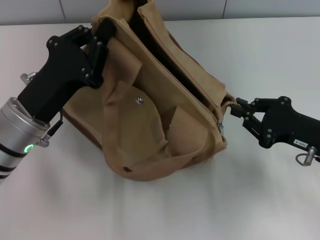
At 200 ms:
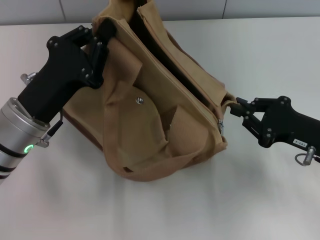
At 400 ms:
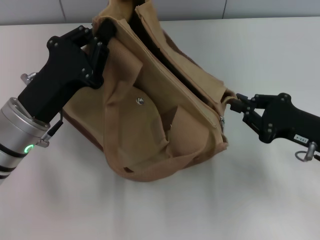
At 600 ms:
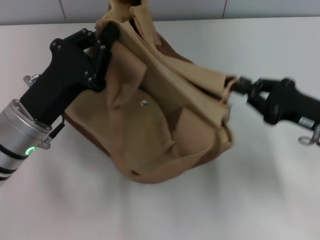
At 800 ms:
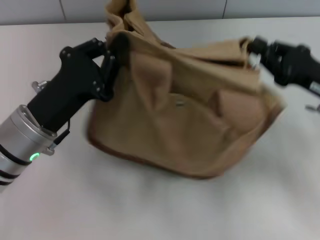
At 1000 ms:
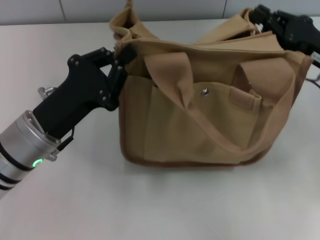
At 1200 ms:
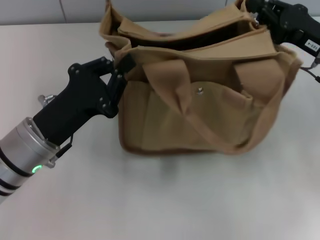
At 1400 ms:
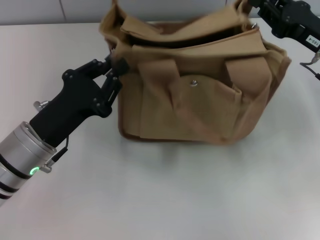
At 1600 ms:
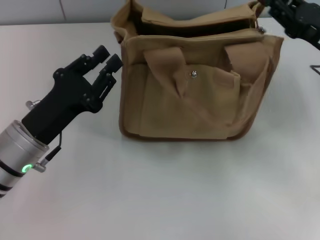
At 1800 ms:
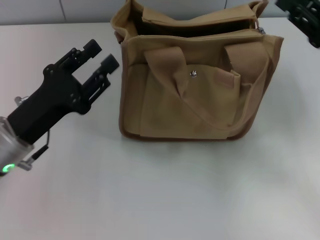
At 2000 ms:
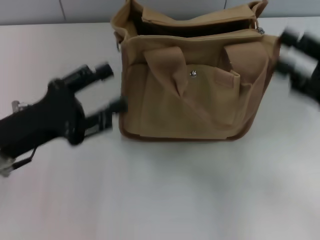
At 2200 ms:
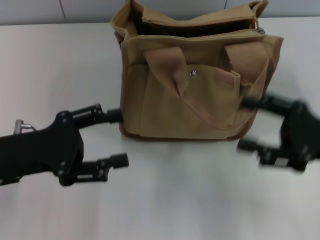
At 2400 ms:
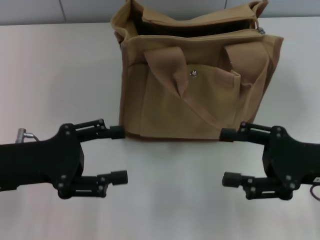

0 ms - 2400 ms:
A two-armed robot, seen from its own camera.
Step, 0 ms - 1600 ms: Grab the bag with your left hand.
0 ms - 1200 ms: The right gripper goes roughly 10 cm forward and upward.
1200 ms - 2400 ms: The right gripper goes about 10 cm backward, and opens its fingers. The left gripper travels to the left by some 5 cm, and opens its fingers.

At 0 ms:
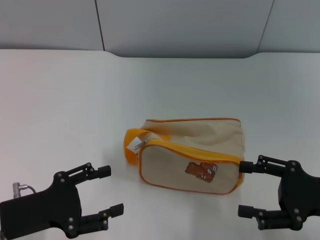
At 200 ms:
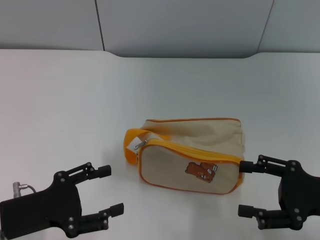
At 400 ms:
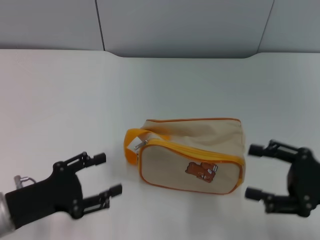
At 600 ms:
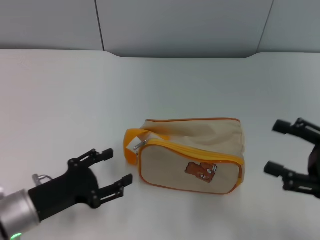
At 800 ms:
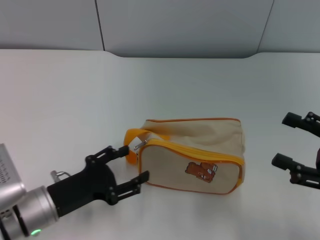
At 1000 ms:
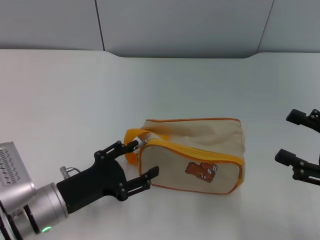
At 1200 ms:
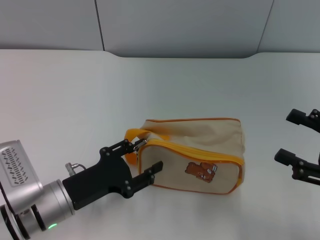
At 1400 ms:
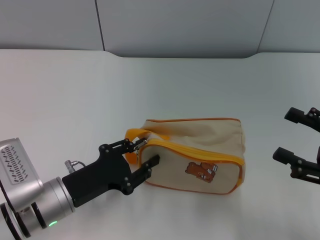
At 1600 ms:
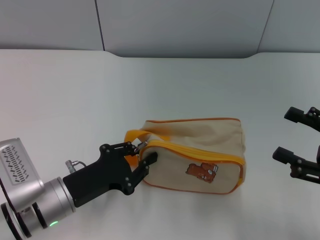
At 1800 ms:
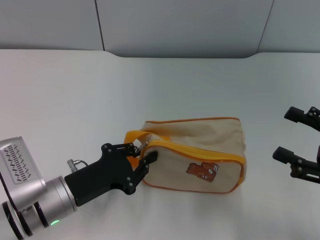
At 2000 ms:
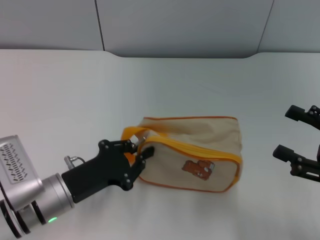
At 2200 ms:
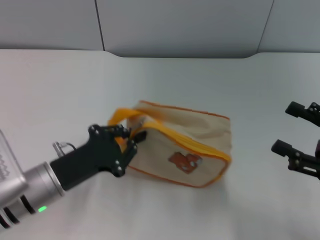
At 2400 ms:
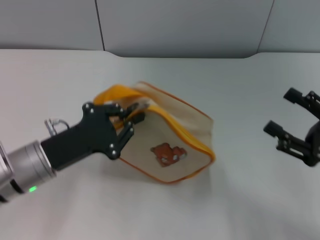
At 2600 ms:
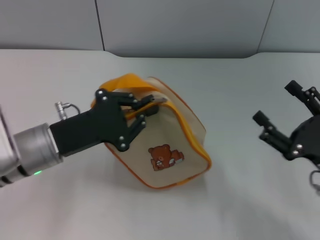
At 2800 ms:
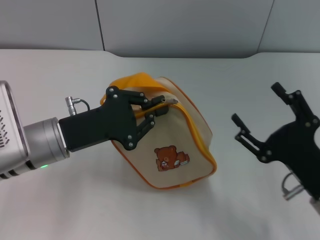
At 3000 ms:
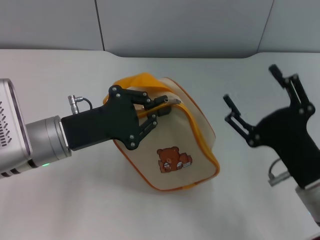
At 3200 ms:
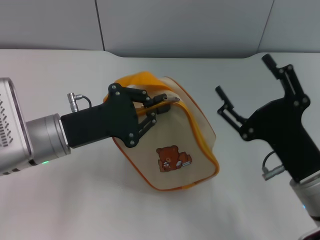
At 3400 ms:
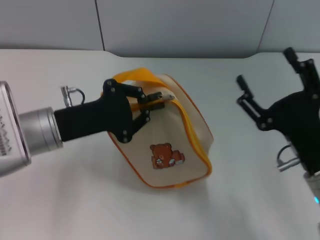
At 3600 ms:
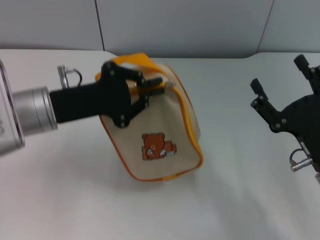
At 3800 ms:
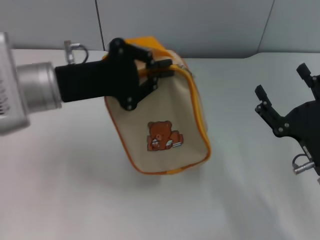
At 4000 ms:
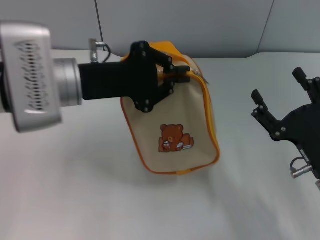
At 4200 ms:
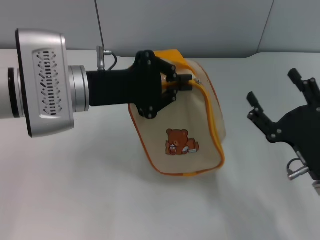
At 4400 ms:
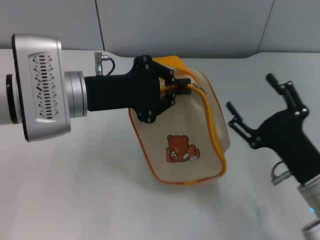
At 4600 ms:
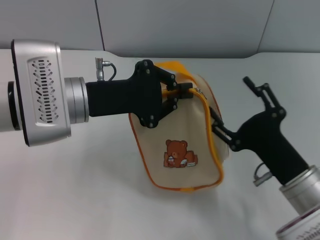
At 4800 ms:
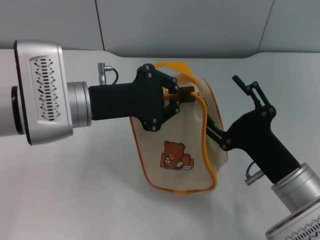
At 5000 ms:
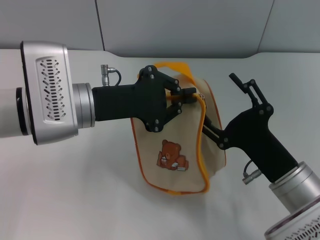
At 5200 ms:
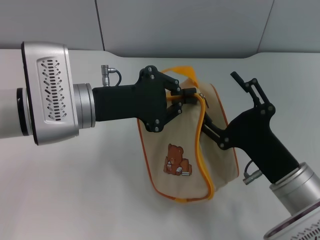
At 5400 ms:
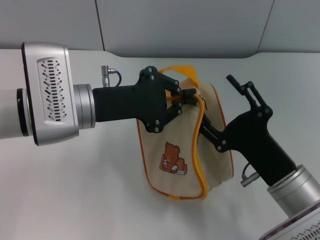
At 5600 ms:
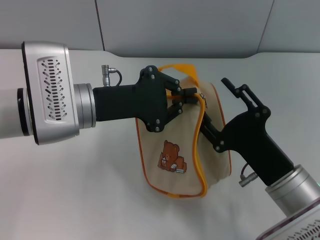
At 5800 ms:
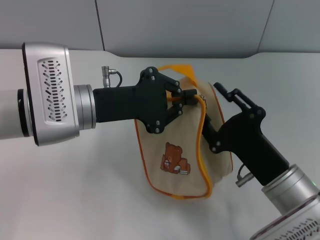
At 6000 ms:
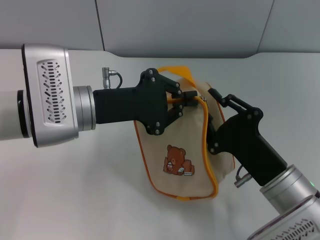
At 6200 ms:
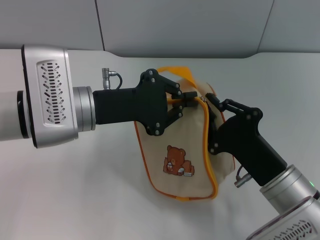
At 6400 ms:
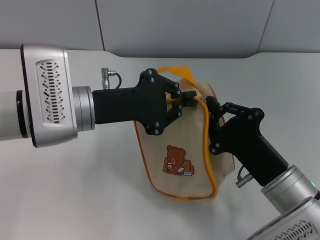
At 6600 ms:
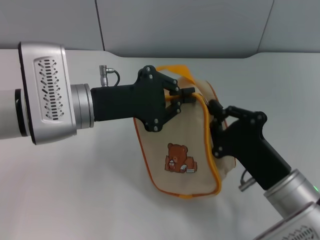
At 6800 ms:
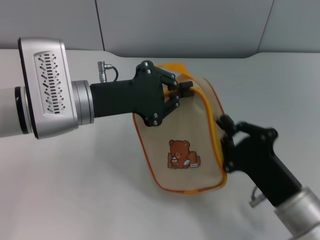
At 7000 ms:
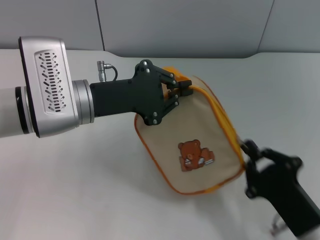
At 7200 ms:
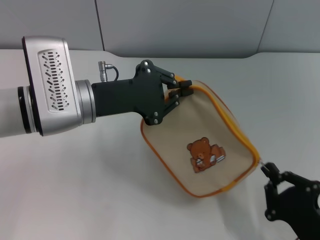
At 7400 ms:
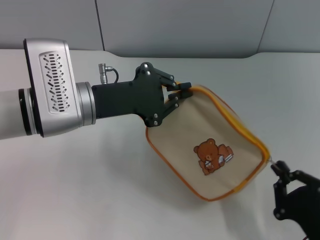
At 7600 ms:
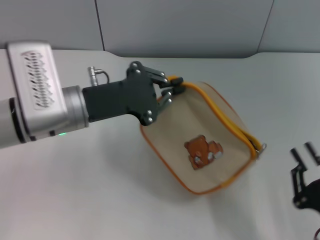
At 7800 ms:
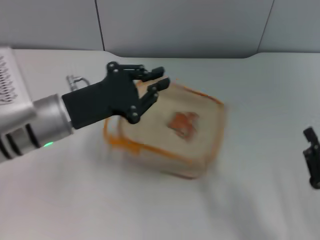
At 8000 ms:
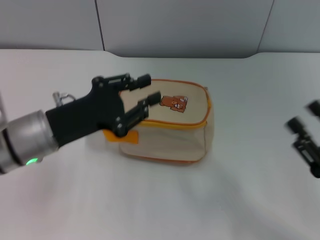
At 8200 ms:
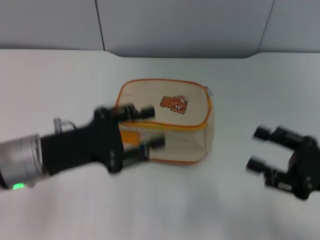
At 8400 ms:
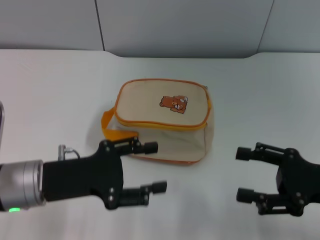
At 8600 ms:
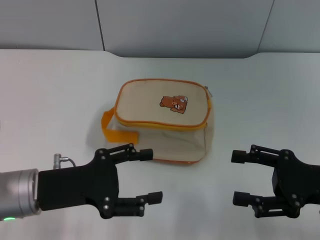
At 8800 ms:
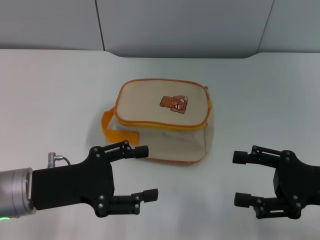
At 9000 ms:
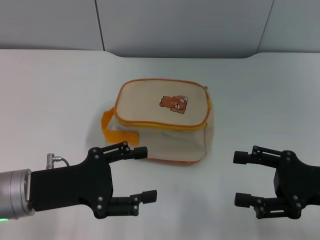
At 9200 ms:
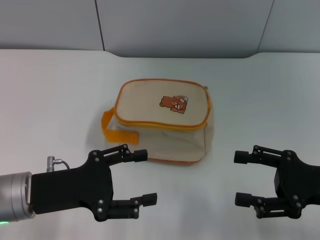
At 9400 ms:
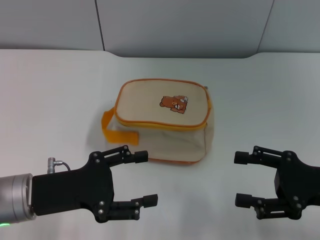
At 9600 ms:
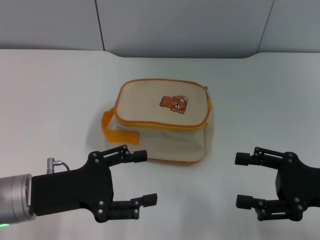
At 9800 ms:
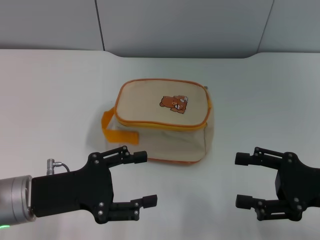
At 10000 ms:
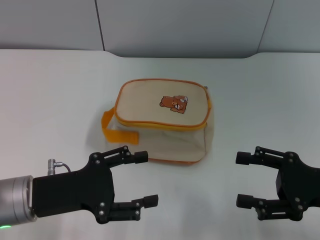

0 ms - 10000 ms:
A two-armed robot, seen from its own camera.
Step, 0 ms - 4200 ms: Pick up the bag with left gripper.
Step, 4400 ms - 7400 ms: Unzip the zipper of bag with right gripper.
Step, 7800 ms - 8000 ms: Place the bag on the table with left gripper.
0 ms - 1400 ms: The left gripper moves to the right, some 5 cm.
1400 ms - 2800 ms: The right gripper moves to the left and downward, about 10 cm. The left gripper shifts about 10 cm upward and forward, and closes up.
2800 ms - 4200 ms: The left gripper goes roughly 5 cm upward.
4200 ms - 5800 ms: The right gripper goes about 5 cm to the left.
5800 ms - 7200 ms: The right gripper goes about 10 cm backward and to the right, and closes up.
7200 ms - 8600 ms: The left gripper is displaced backward, to the left and downward by some 10 cm, and opens its fingers. Meanwhile the right gripper shifts about 15 cm forward, upward and to the right, and opens up.
8600 ms - 10000 ms: The grippers make only small movements.
